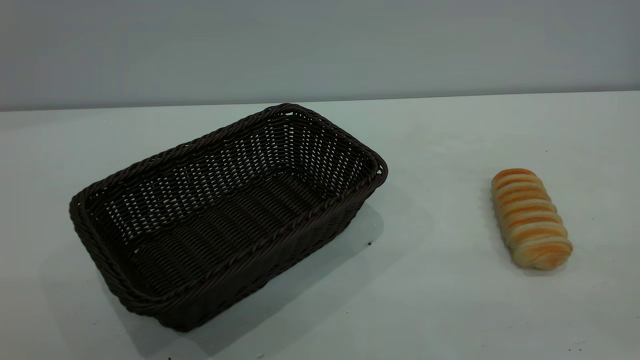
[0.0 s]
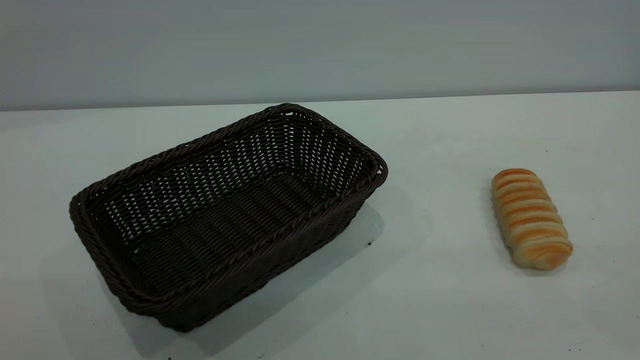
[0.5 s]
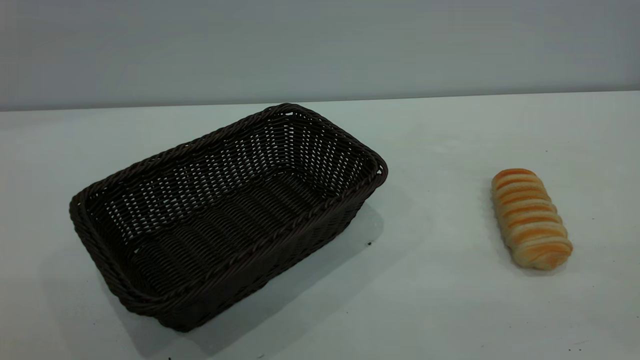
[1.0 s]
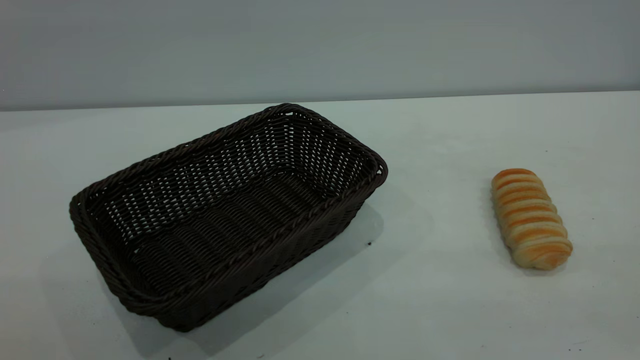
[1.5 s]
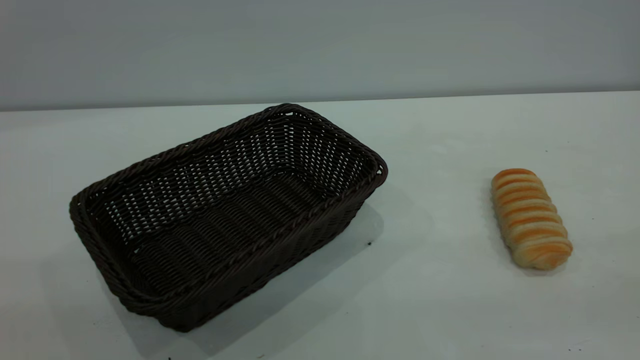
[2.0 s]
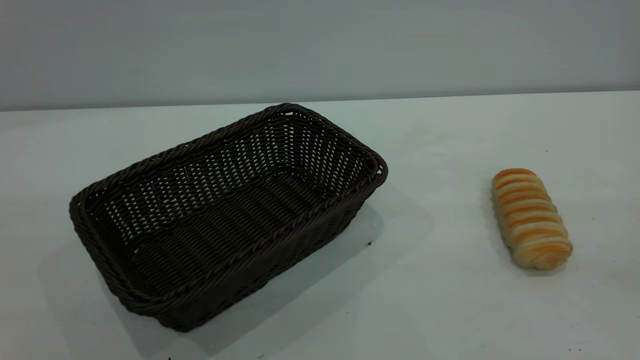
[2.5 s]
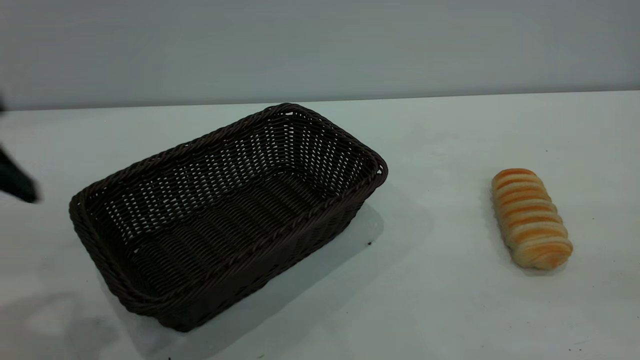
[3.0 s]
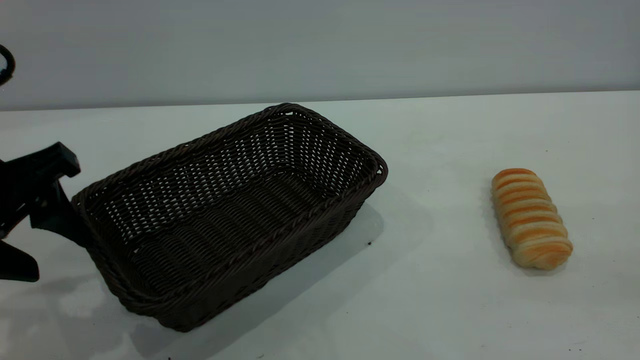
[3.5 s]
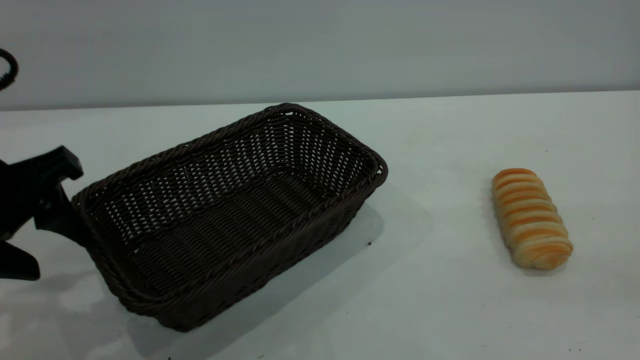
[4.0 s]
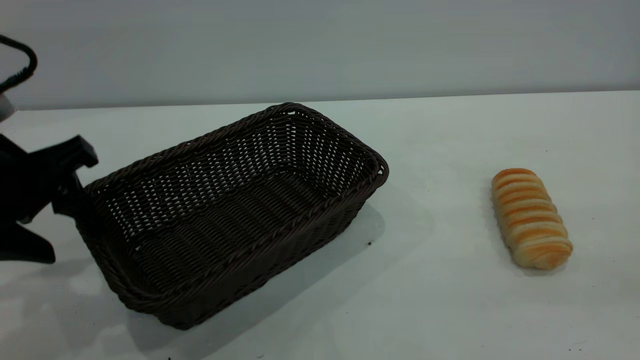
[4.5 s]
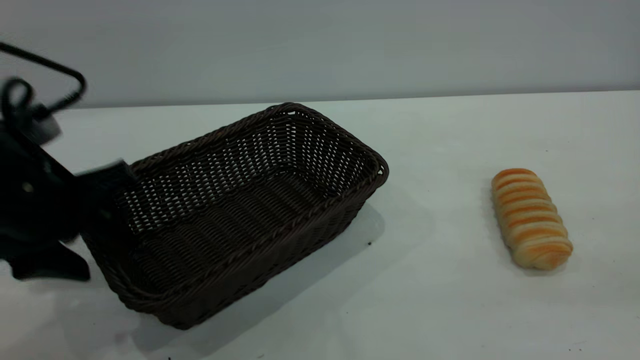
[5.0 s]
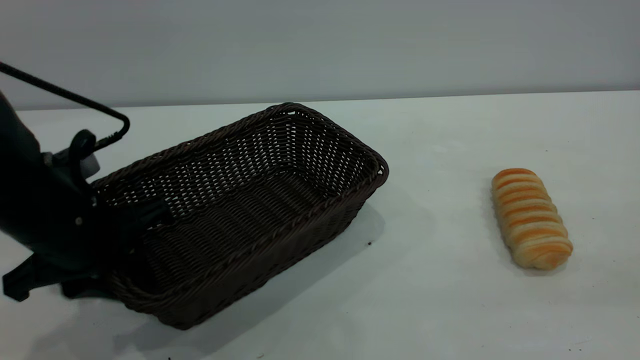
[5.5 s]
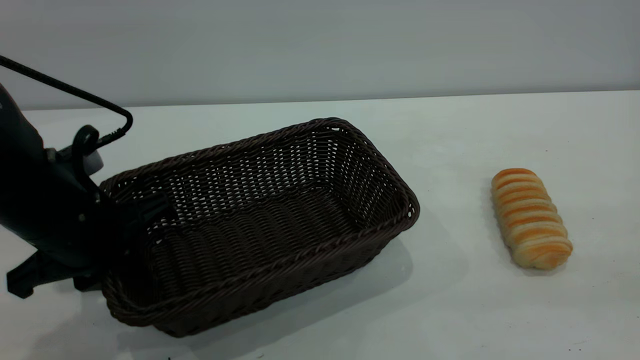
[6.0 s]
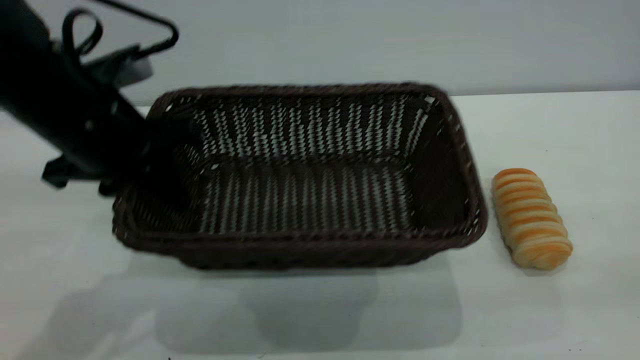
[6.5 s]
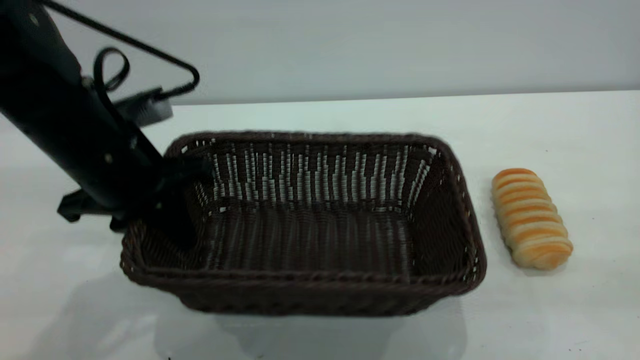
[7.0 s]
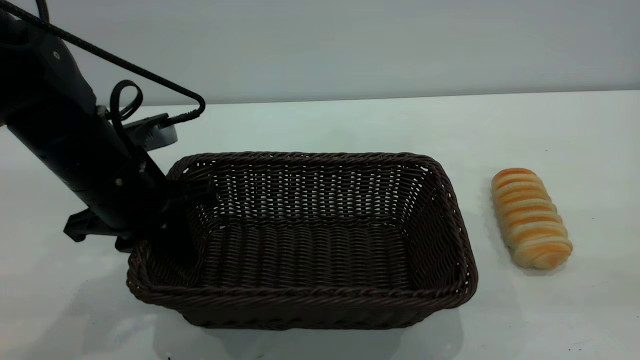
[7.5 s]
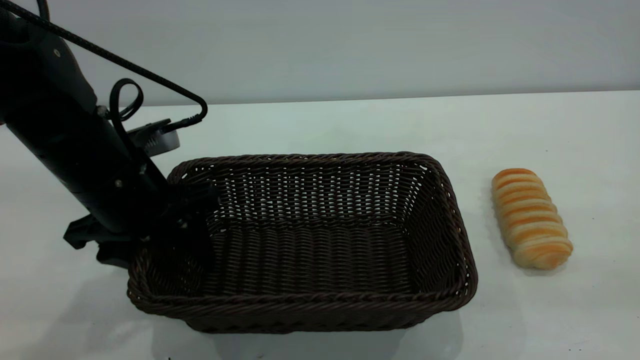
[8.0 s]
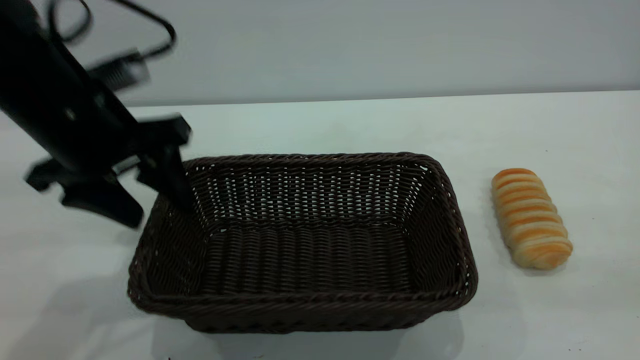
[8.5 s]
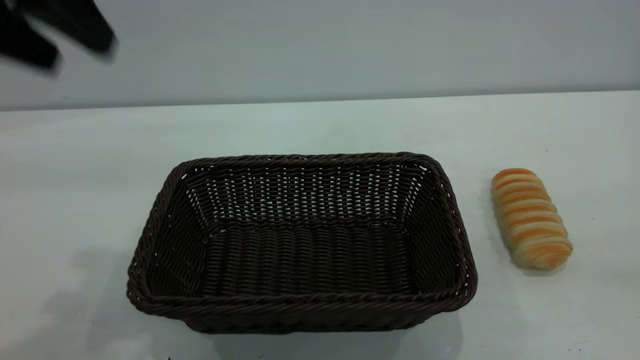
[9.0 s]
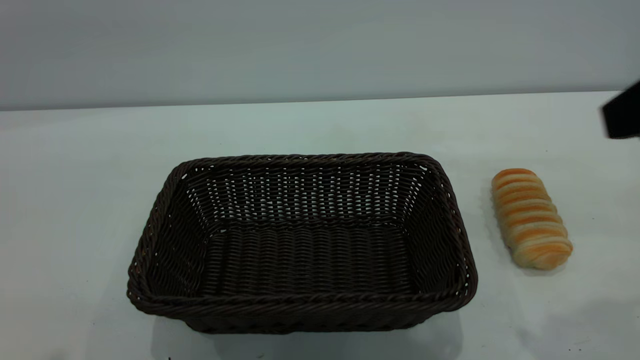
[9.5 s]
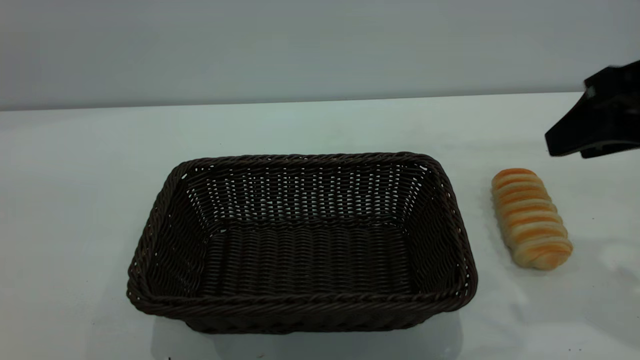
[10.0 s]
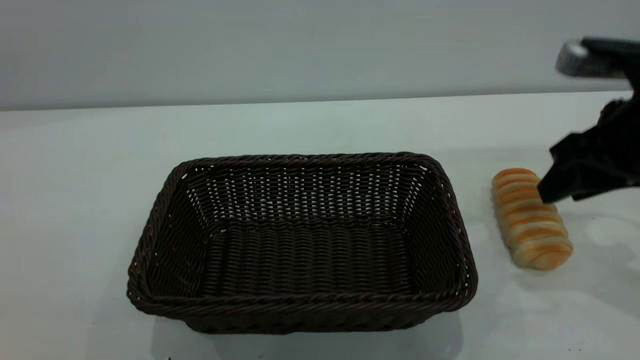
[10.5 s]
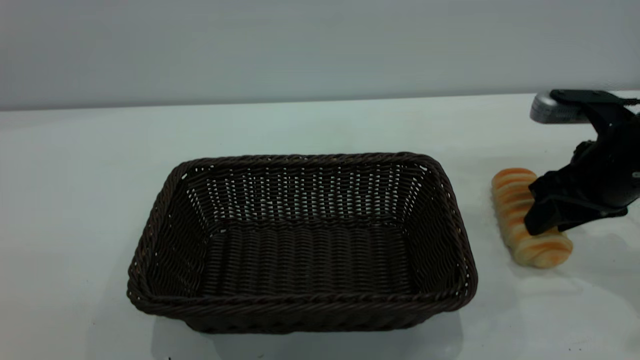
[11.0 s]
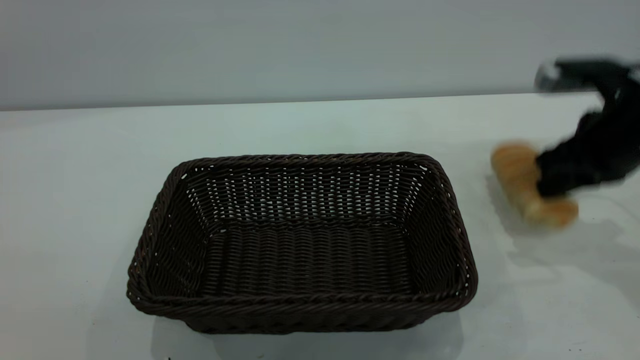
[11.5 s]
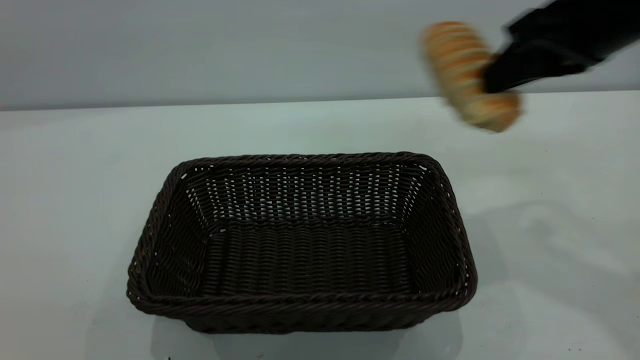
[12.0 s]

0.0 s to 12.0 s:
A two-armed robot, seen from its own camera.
Task of the whole recording: One hand grasps the black basket and places it in the middle of the table, while the other hand picks up the long bread and puts it into the black basket.
Step, 0.0 to 8.5 s: Move the basket to the center of view.
2.0 to 4.0 s: The left gripper heads forward and downward, covering some 30 cm.
4.0 to 6.0 s: The left gripper goes some 5 cm downward, and closes up.
6.0 to 8.0 s: The left gripper opens up.
8.0 to 10.0 s: The left gripper travels upward and backward by roughly 50 cm. The right gripper shifts about 25 cm forward and downward.
10.0 to 12.0 s: The right gripper is displaced to the left by some 5 cm, moves roughly 10 cm downward and comes back, and closes up.

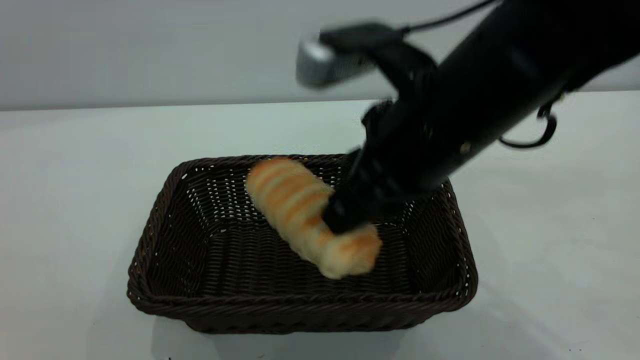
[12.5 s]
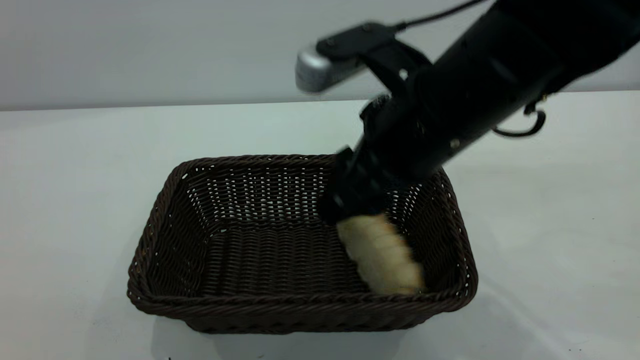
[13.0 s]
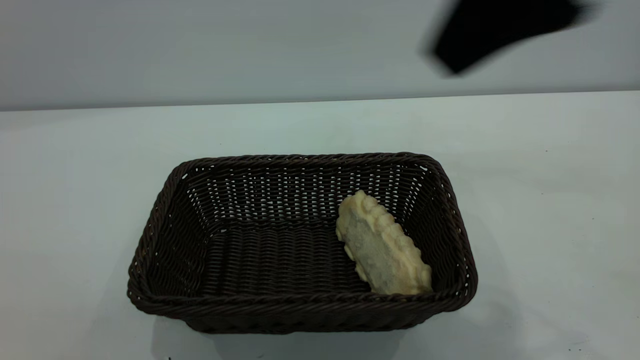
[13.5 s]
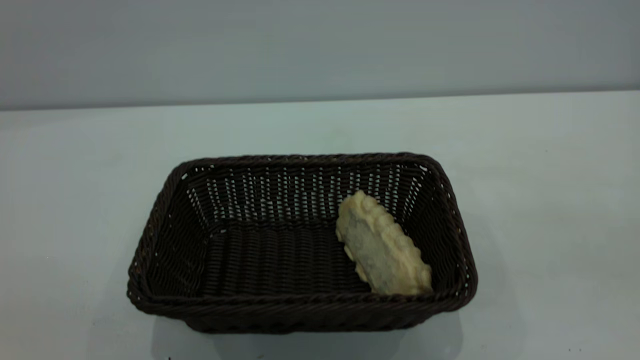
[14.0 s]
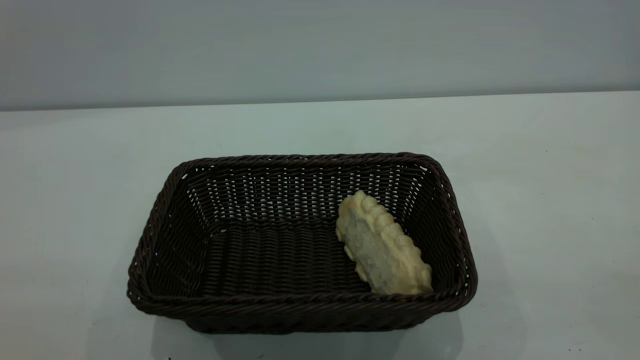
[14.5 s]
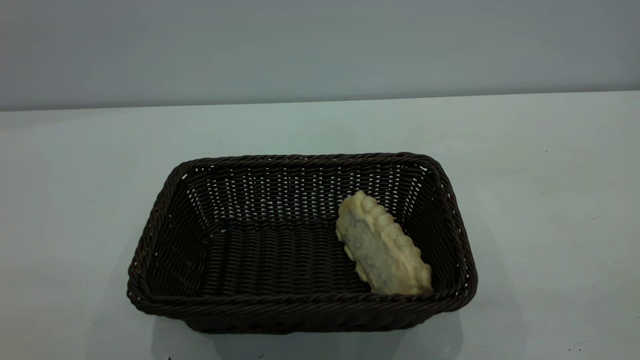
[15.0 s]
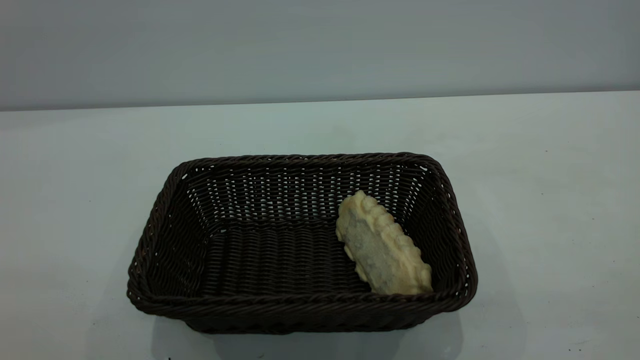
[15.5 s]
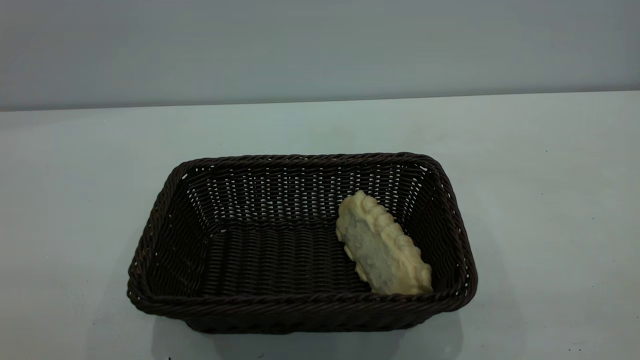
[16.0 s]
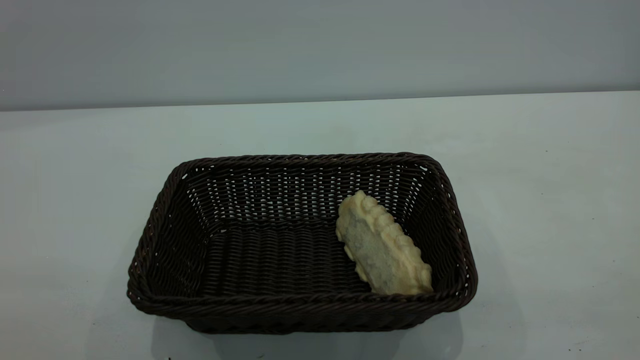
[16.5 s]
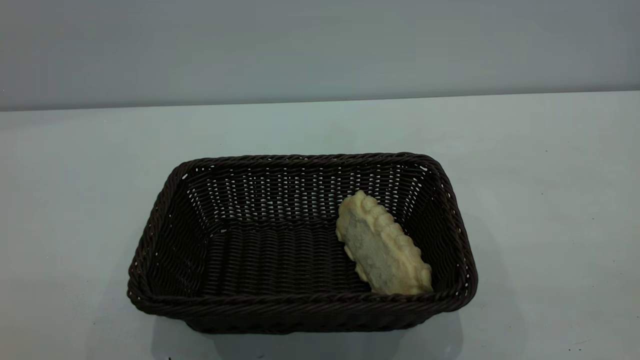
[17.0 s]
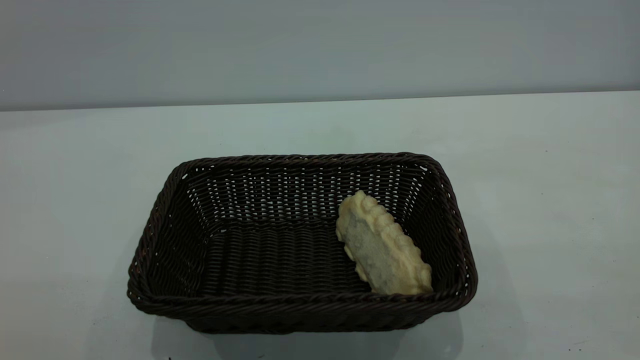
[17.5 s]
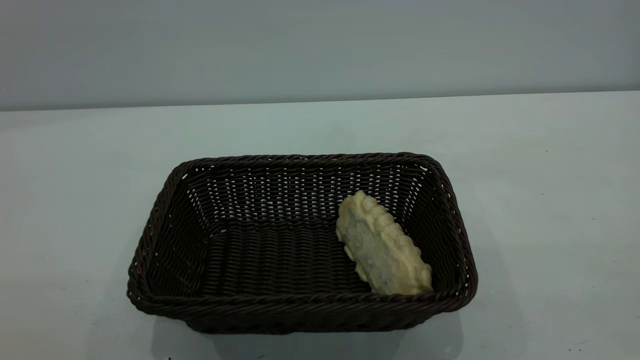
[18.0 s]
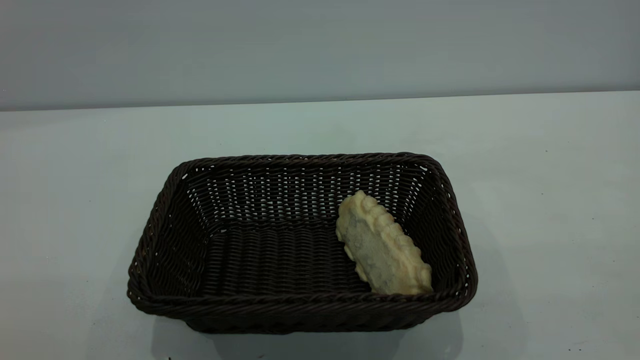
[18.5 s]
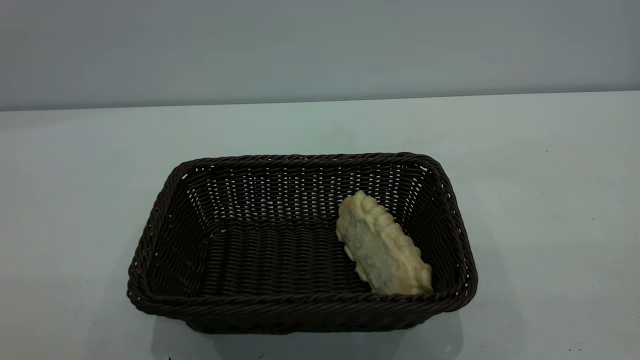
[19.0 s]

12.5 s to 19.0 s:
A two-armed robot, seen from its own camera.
Task of the whole recording: One hand grasps the black basket and places it in the middle of the table, while the other hand picks up the long bread and puts it into the black basket.
12.5 to 14.5 s: The left gripper travels downward and forward by some 15 cm, while the right gripper travels backward, to the right and upward by approximately 40 cm, and opens.
